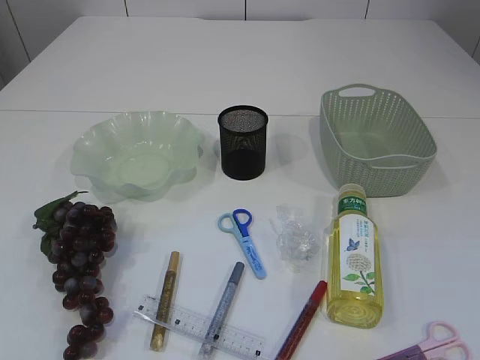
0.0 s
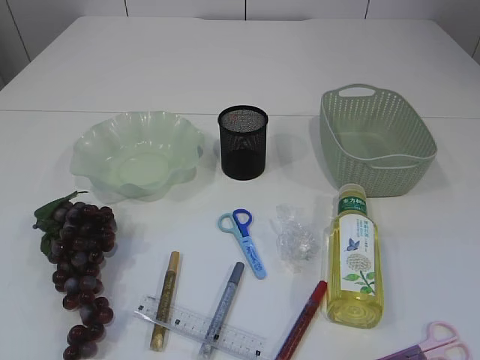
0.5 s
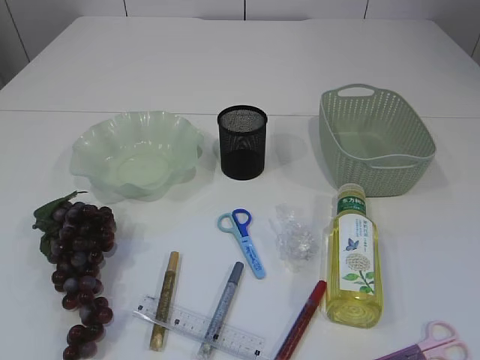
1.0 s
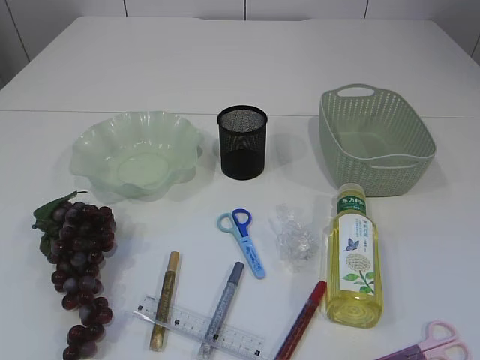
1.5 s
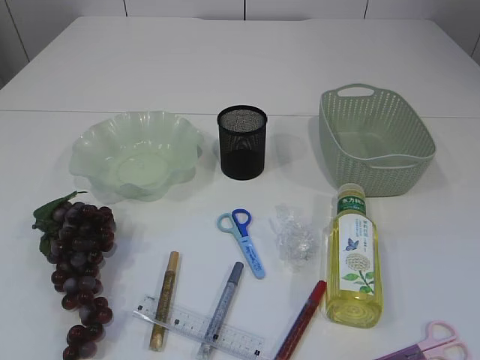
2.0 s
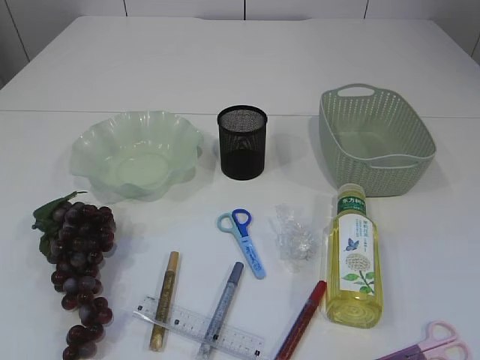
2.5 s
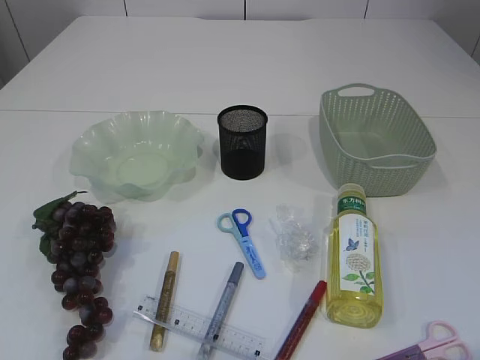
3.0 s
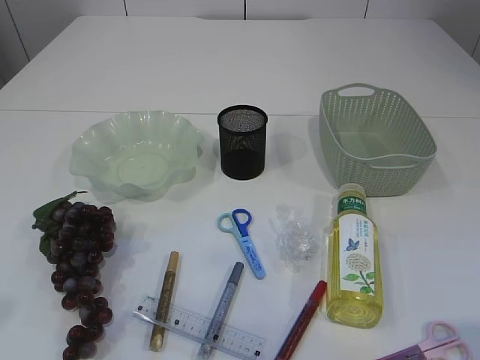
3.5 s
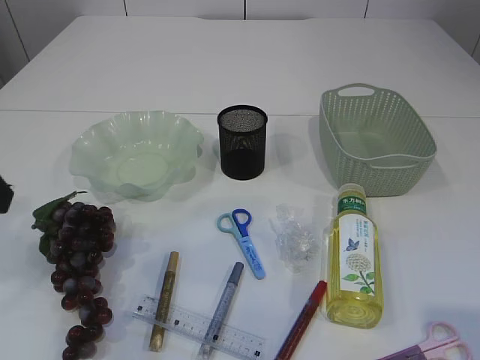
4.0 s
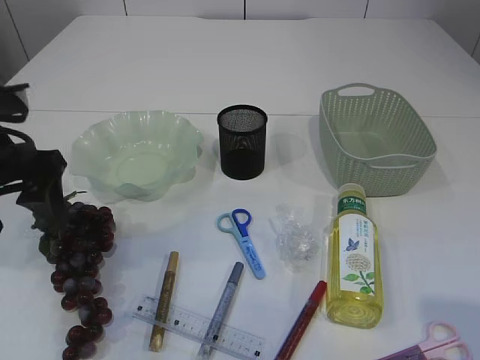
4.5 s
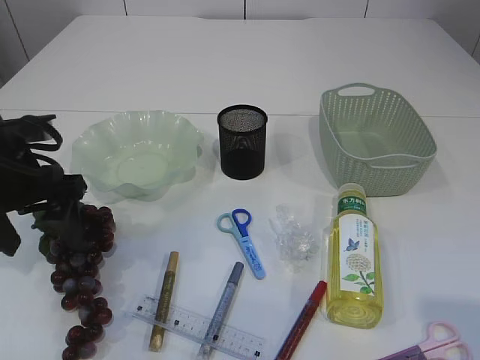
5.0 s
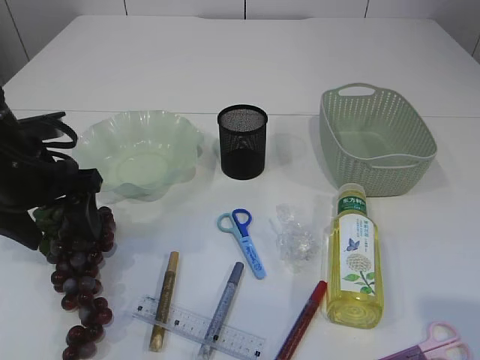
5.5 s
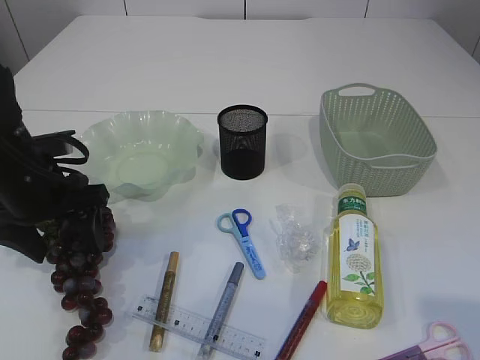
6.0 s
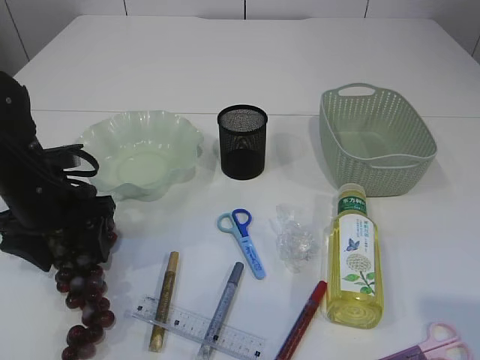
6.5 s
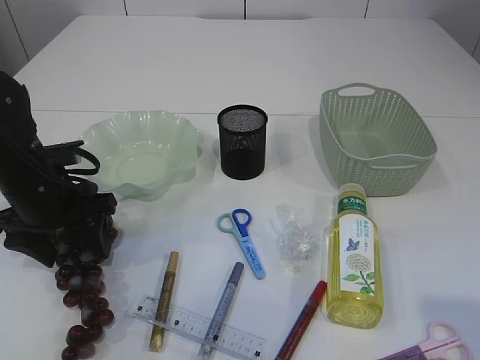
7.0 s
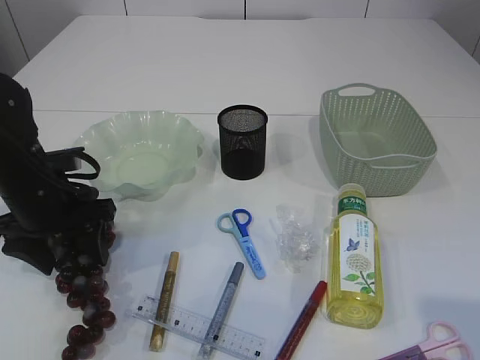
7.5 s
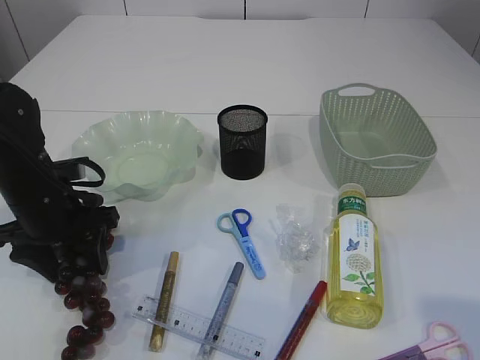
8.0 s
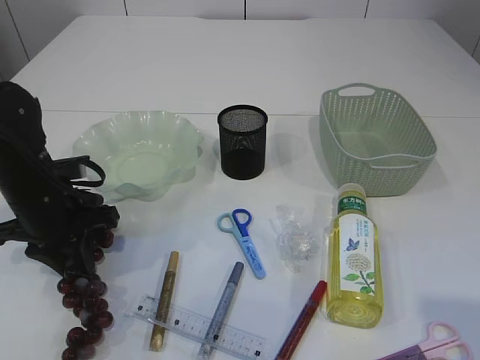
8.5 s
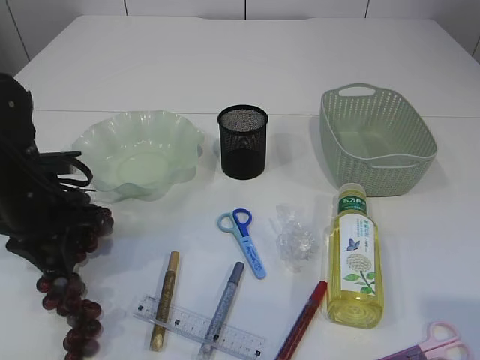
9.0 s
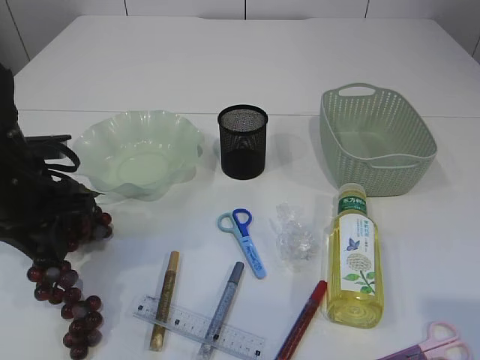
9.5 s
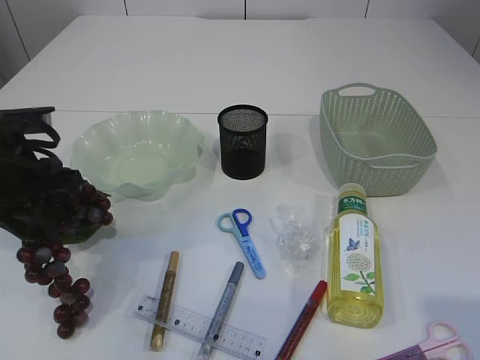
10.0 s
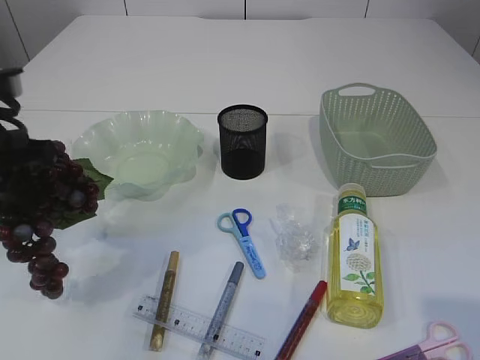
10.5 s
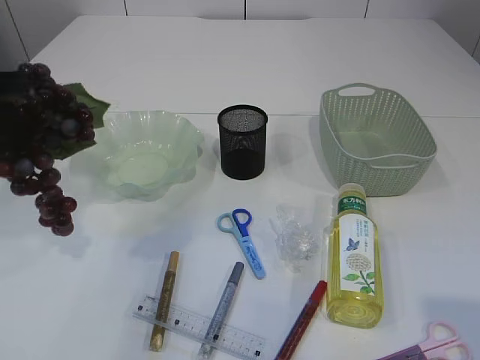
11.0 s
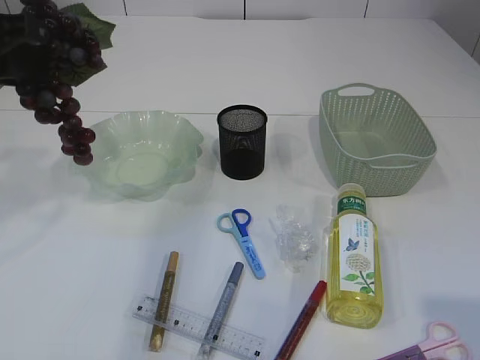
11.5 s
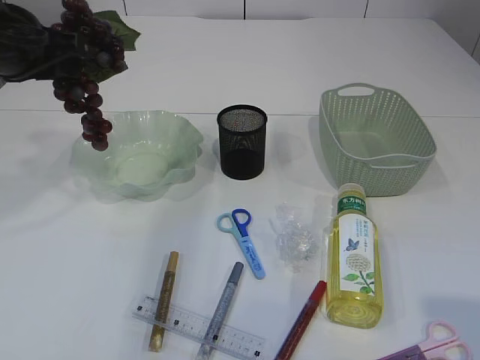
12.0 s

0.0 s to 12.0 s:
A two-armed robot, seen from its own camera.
Step, 0.0 to 10.5 s: Pick up the grapes.
2.0 to 4.0 s: The right gripper is displaced forward by some 5 cm. Meanwhile the left gripper heads forward, covering some 20 cm, and opens its fingers.
4.0 to 6.0 s: The left gripper heads downward and forward, covering approximately 20 cm.
6.0 to 8.0 s: The grippers move only a little.
8.0 to 10.0 s: The left gripper moves upward, about 10 cm, and closes its fingers.
10.0 to 12.0 s: The left gripper travels upward by about 10 cm.

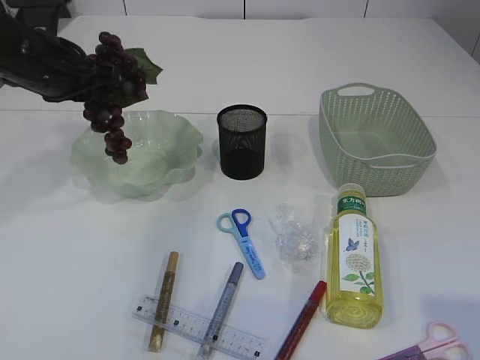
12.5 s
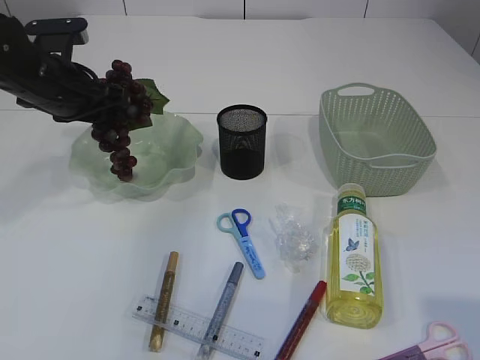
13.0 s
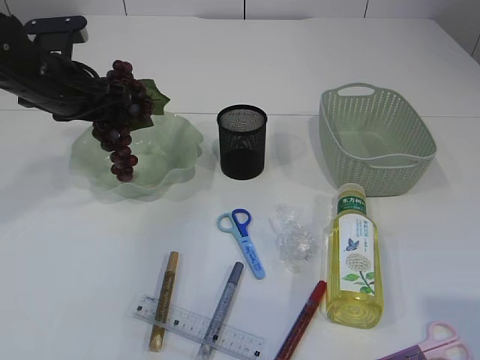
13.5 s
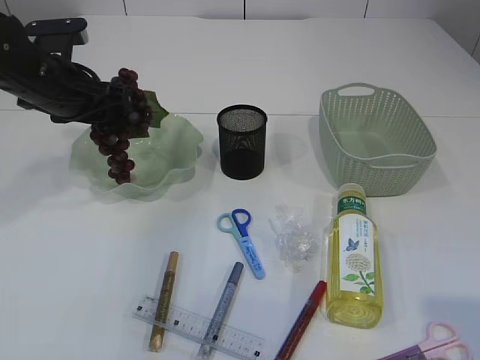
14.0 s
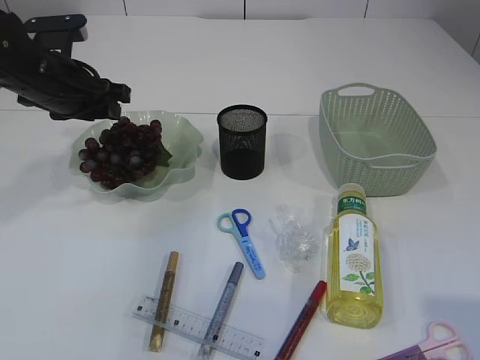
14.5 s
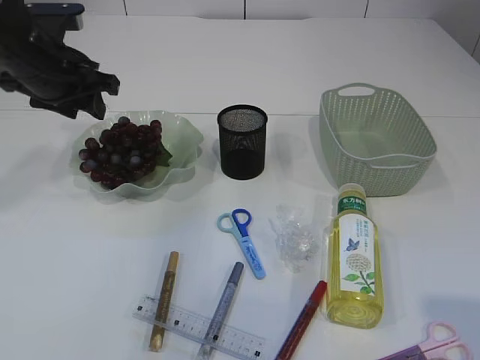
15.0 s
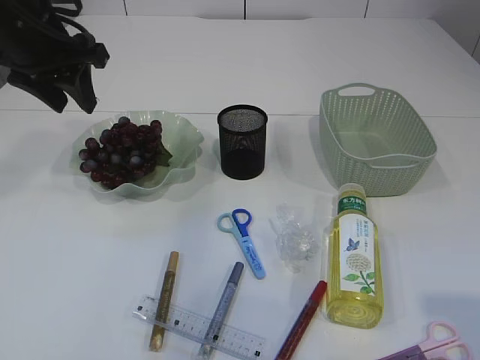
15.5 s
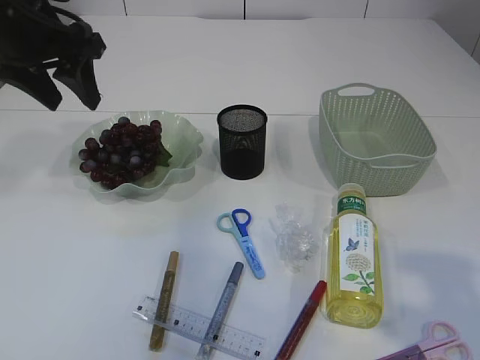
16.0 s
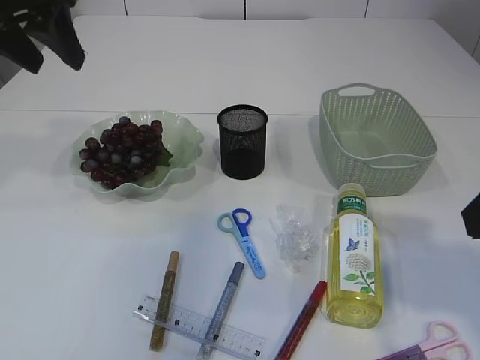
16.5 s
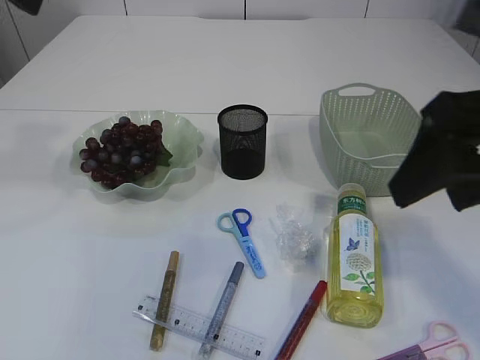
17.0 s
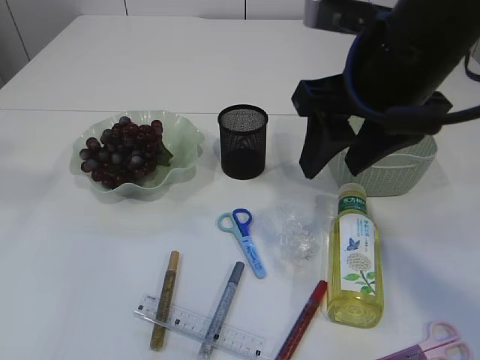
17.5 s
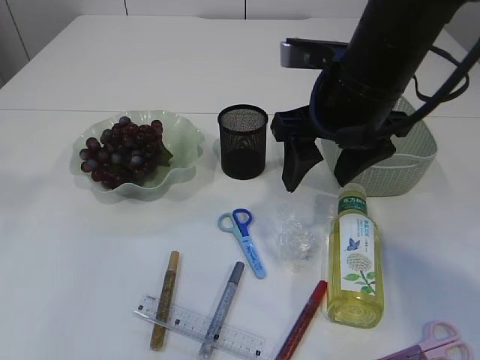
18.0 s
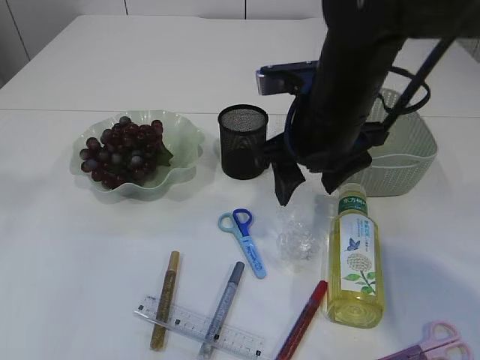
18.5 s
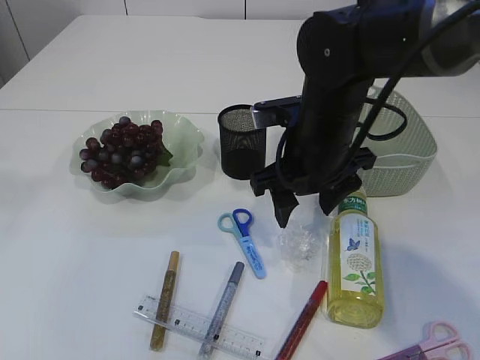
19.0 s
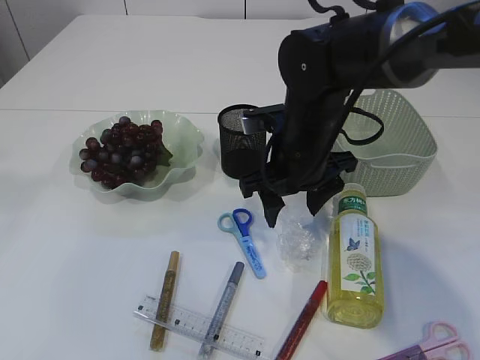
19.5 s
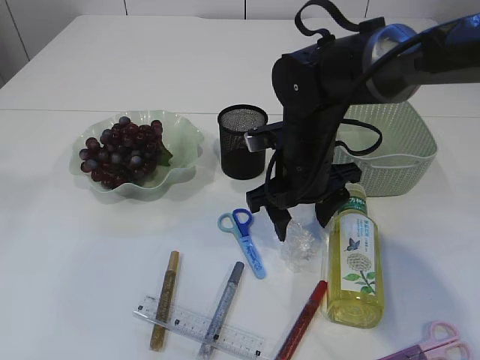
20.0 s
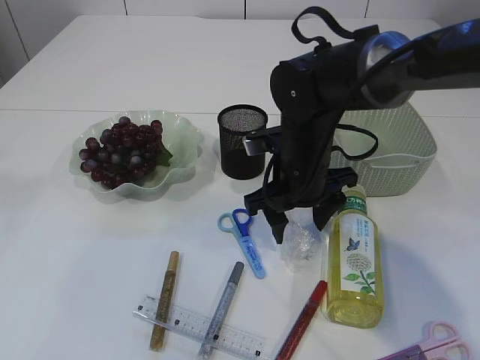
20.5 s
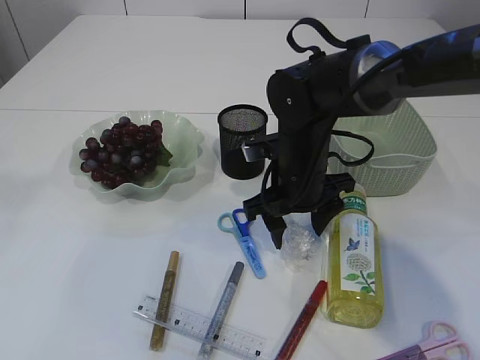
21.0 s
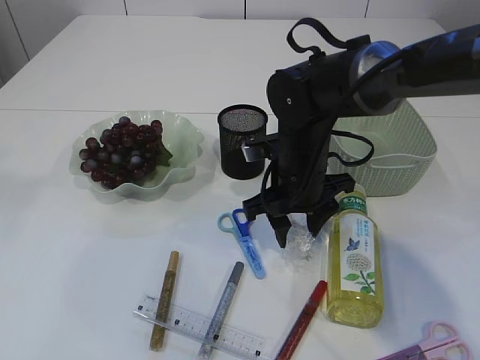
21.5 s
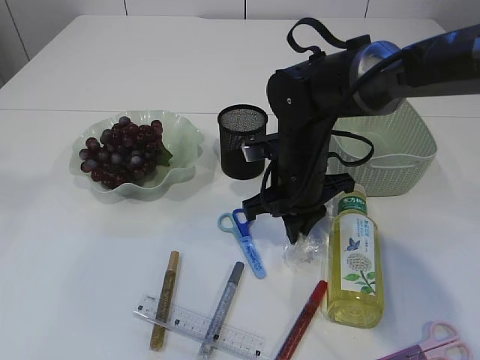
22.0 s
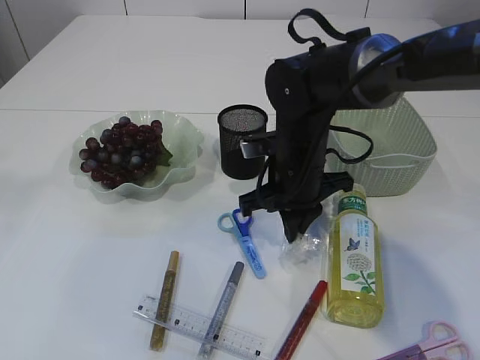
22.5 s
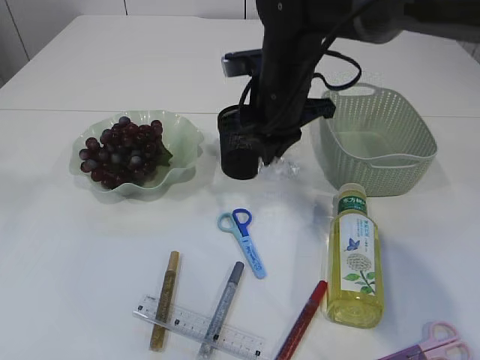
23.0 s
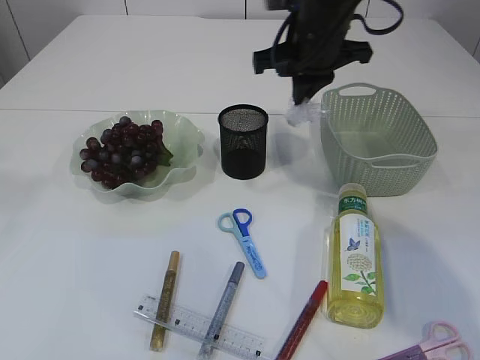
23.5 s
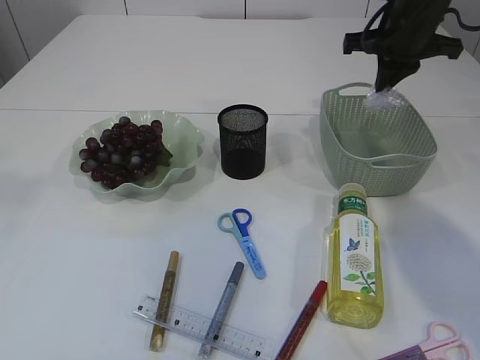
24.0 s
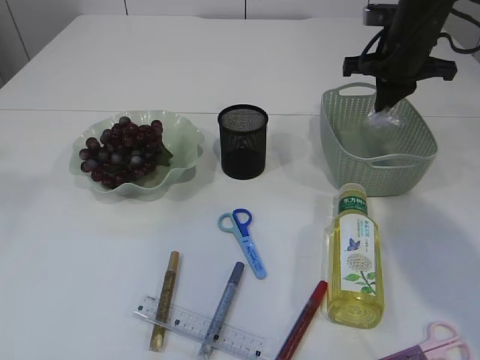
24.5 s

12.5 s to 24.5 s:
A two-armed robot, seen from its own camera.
Step, 12.5 to 15.0 s: Place the grapes in the plate.
Step, 15.5 to 22.5 s: Pick up the plastic.
12.5 to 14.5 s: The grippers make only small movements.
14.5 to 16.5 s: The right gripper goes roughly 10 cm forward; the left gripper goes approximately 15 cm upward.
16.5 to 18.5 s: The left gripper heads backward and upward, covering some 20 cm. The right gripper heads forward, to the left and downward, covering some 20 cm.
18.5 to 20.5 s: The right gripper travels downward by some 10 cm.
20.5 to 22.5 s: The right gripper closes.
22.5 to 24.5 s: The right gripper shifts some 20 cm to the right, forward and upward.

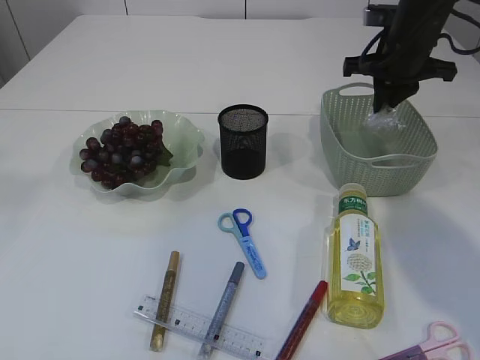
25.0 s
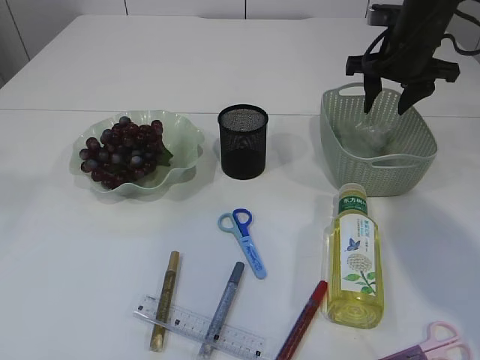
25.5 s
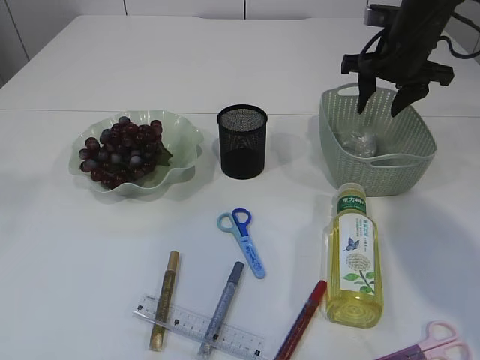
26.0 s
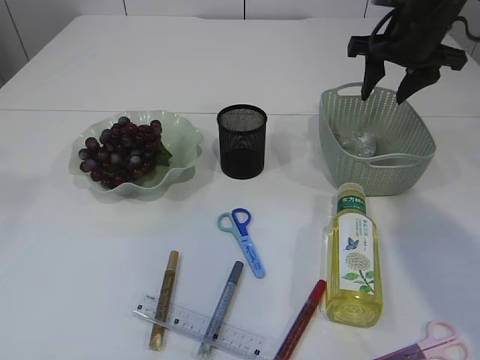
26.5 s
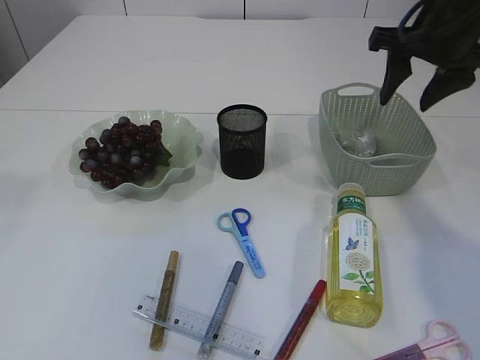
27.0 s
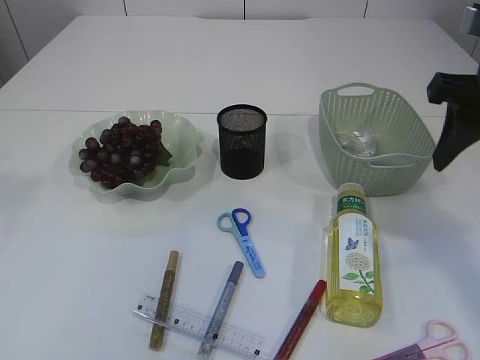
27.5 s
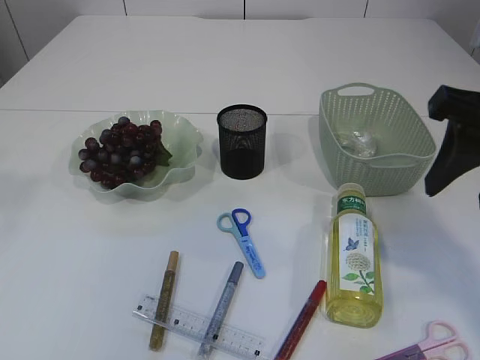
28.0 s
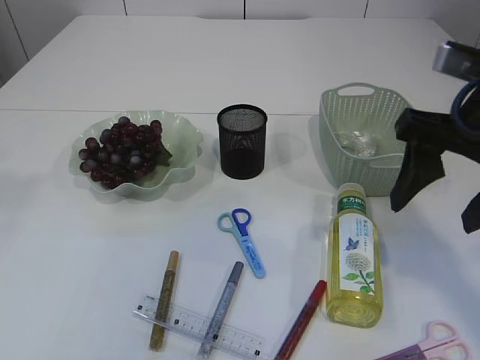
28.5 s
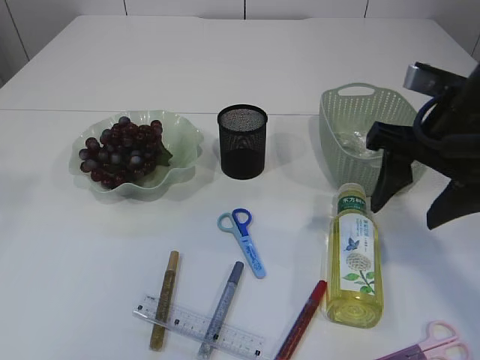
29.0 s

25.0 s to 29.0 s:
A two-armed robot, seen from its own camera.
25.0 to 27.0 s: The right gripper is displaced backward and upward by some 10 cm, and opens.
27.0 to 29.0 s: The right gripper shifts approximately 10 cm backward.
